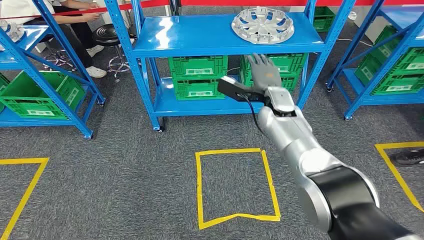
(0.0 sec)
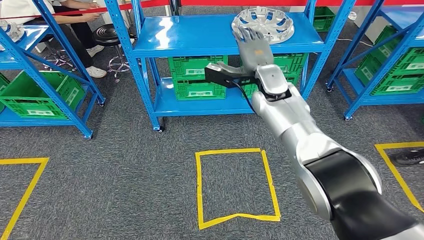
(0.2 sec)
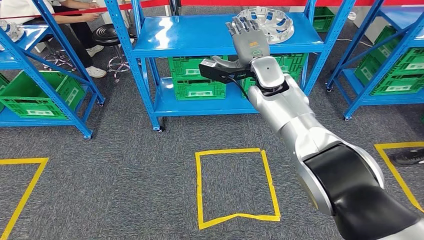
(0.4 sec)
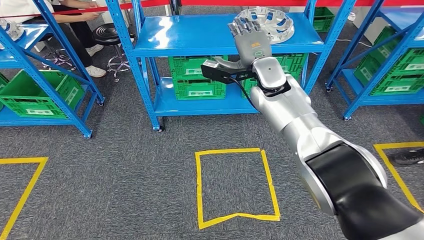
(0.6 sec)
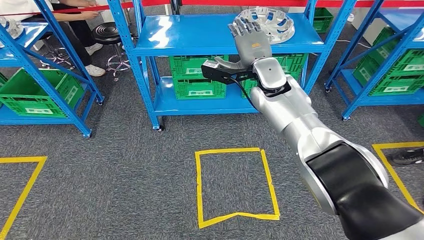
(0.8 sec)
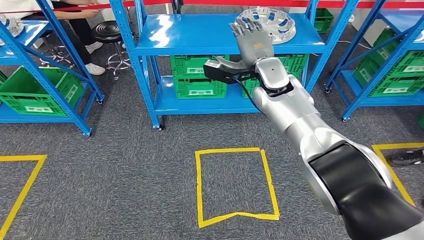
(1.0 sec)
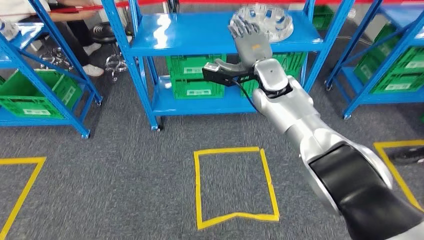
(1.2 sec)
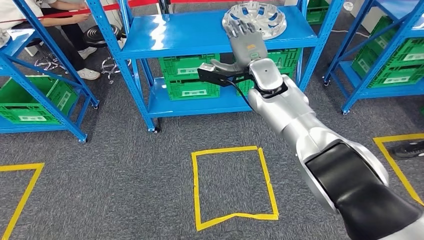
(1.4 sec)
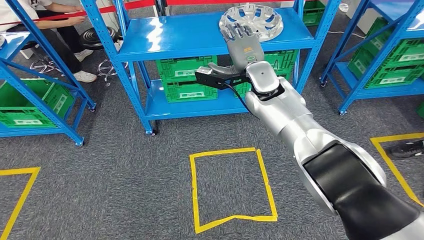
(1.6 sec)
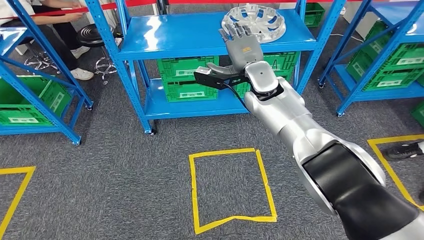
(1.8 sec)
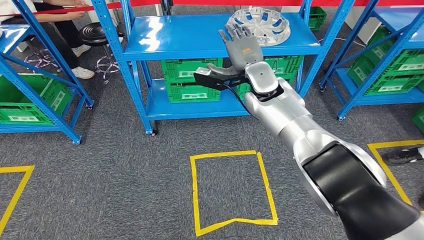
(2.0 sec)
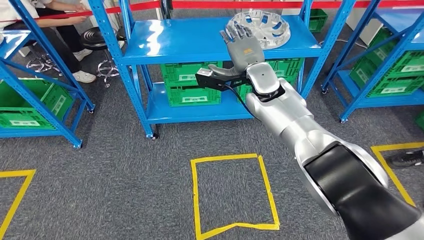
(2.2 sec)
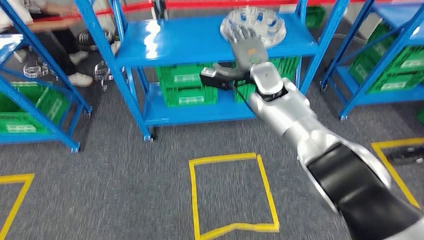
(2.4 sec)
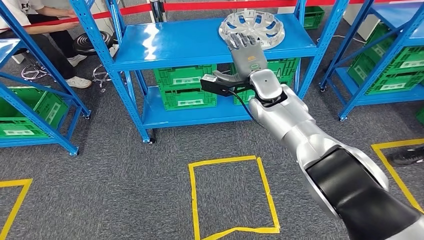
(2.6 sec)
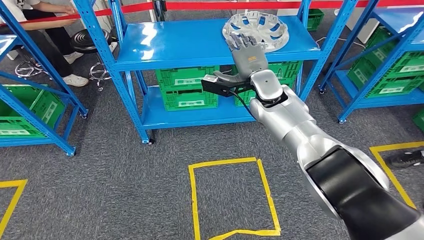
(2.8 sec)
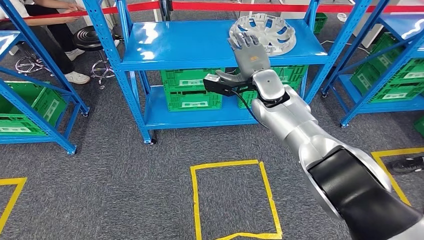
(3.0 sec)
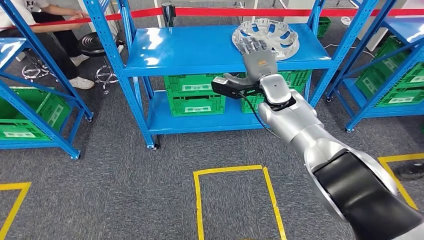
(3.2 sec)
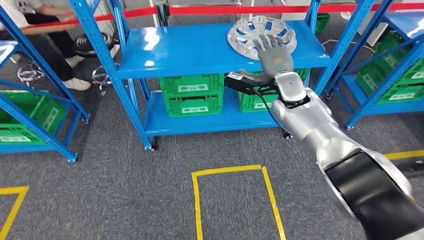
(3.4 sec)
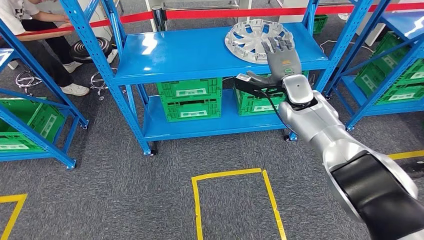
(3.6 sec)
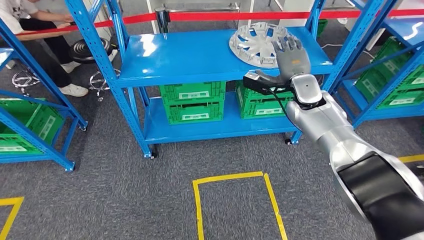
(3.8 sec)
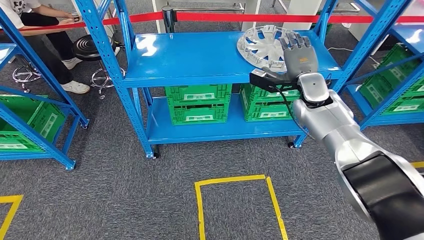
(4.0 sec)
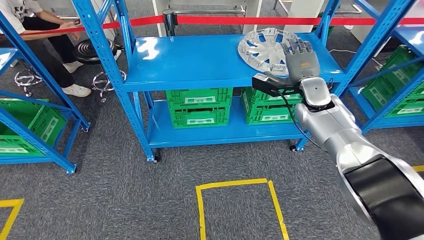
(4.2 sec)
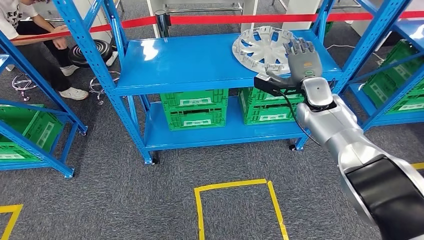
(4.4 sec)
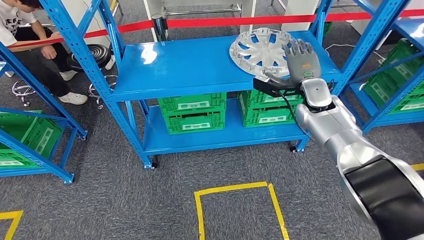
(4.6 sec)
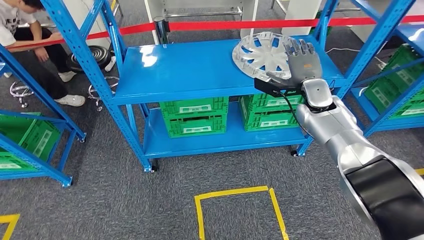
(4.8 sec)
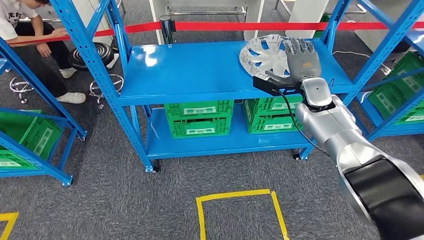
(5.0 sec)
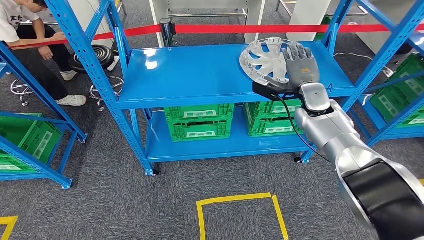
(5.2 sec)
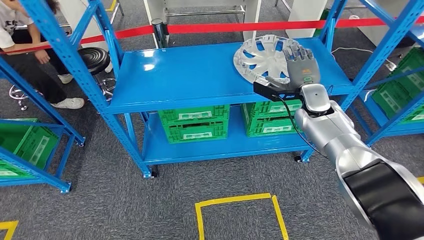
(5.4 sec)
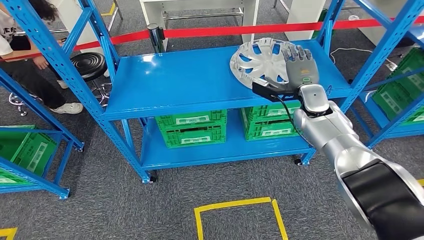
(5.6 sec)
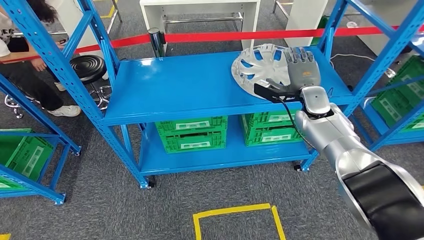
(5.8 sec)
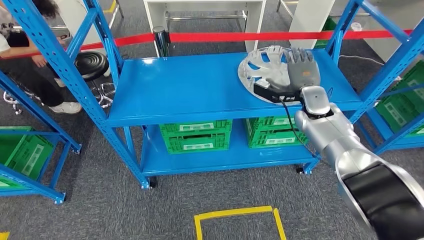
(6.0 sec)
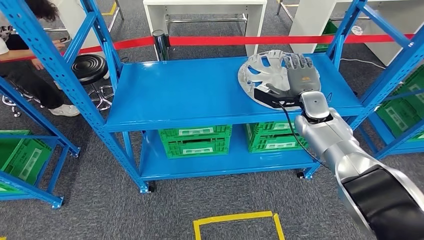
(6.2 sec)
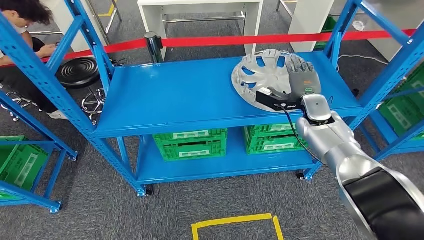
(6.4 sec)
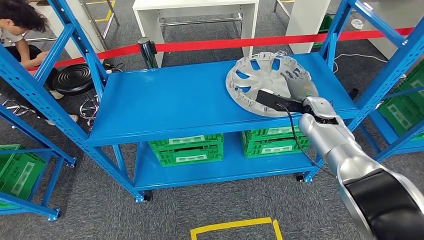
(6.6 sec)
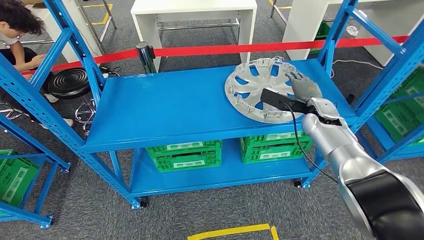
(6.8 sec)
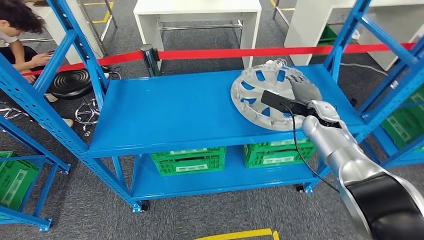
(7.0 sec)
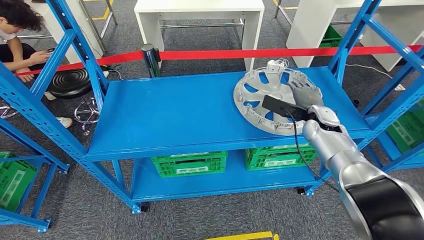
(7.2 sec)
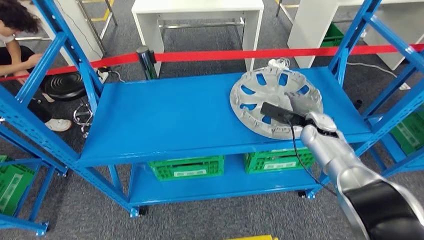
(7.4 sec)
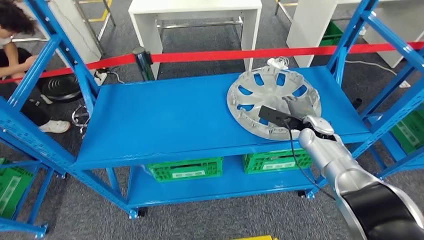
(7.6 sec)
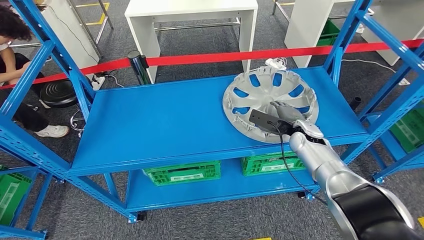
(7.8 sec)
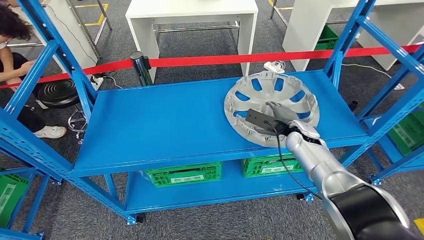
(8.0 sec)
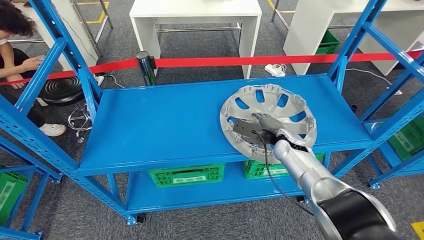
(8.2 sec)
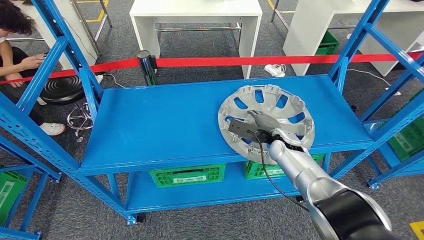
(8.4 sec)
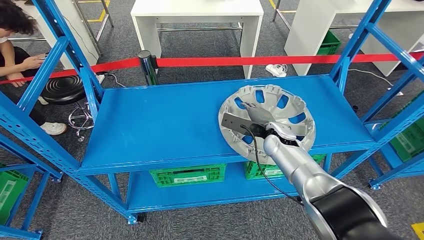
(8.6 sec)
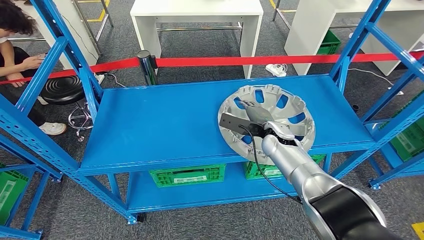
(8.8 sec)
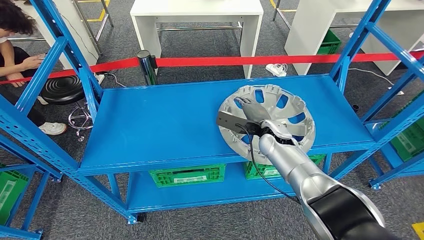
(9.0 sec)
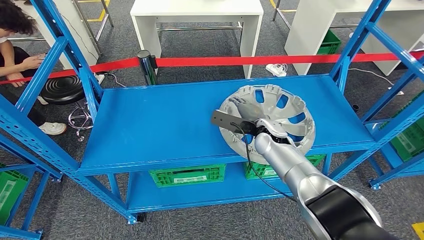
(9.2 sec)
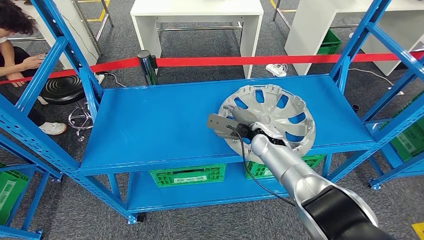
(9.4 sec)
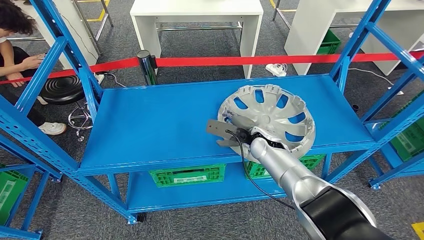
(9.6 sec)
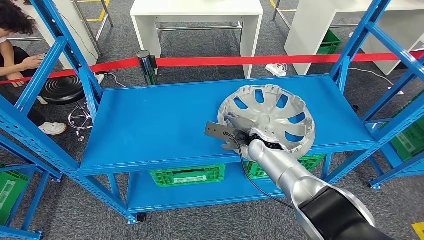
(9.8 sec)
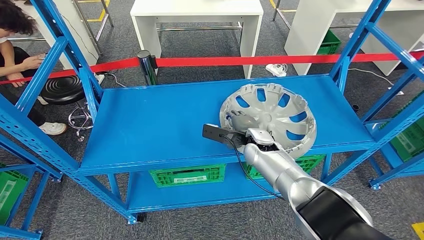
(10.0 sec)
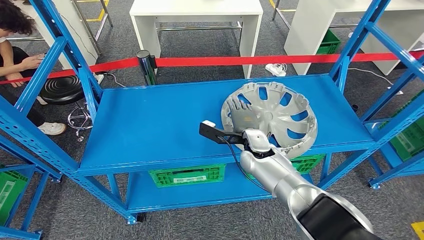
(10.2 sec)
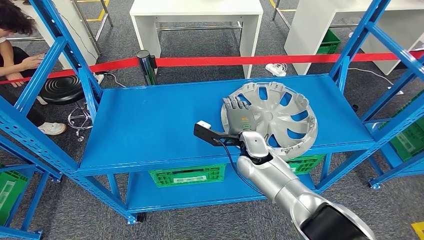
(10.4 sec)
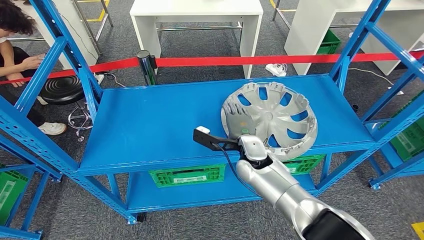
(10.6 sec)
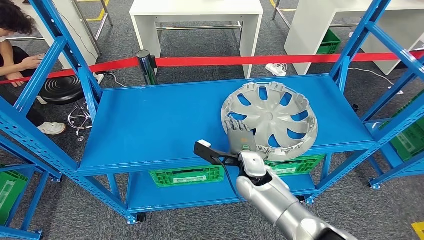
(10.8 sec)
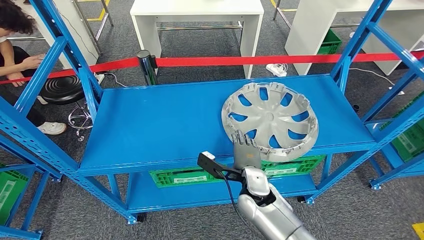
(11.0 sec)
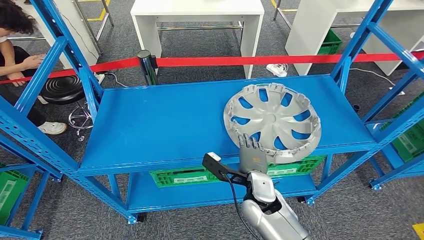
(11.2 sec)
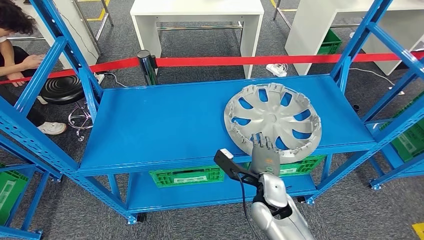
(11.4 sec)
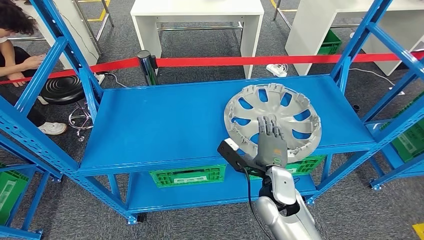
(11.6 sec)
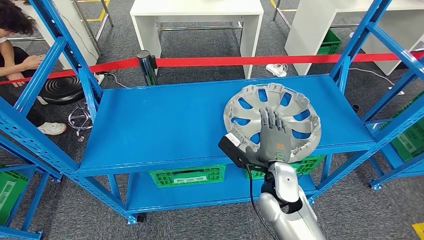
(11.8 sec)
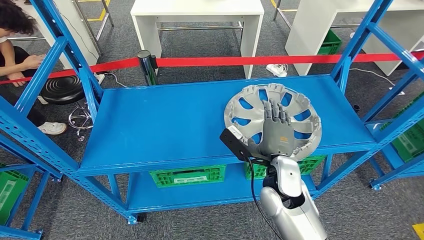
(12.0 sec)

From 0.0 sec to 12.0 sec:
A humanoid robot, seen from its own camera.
From 9.0 sec to 10.4 sec: The right hand moves to the left, some 5 cm.
From 10.4 sec to 12.0 sec: The right hand goes roughly 10 cm backward.

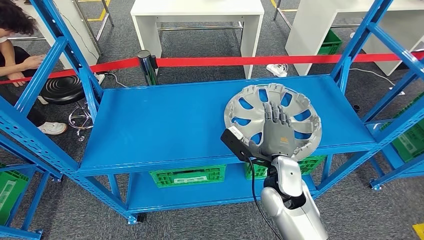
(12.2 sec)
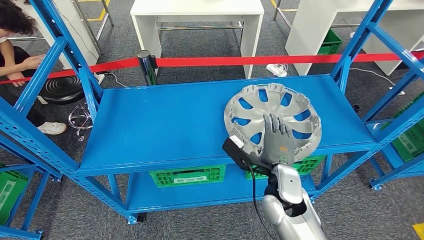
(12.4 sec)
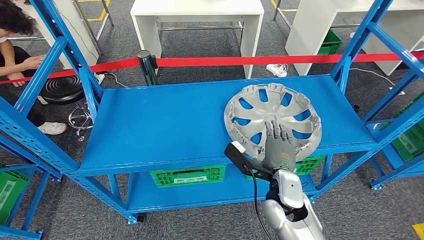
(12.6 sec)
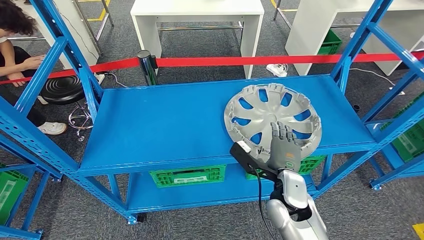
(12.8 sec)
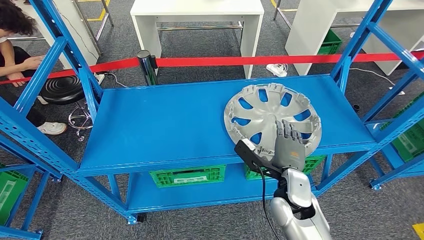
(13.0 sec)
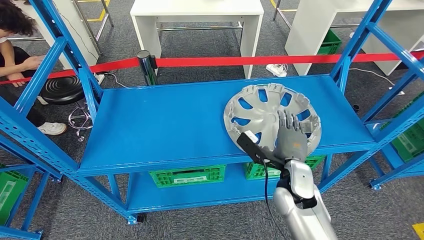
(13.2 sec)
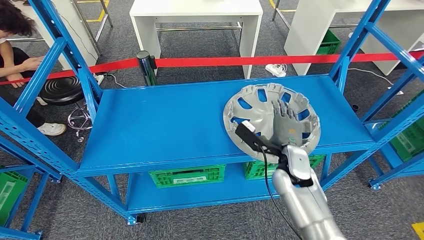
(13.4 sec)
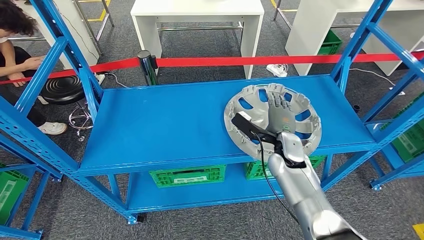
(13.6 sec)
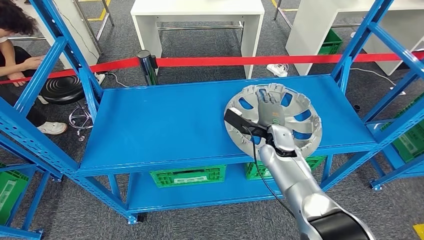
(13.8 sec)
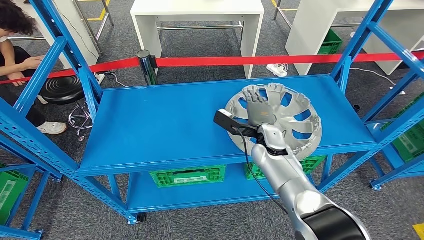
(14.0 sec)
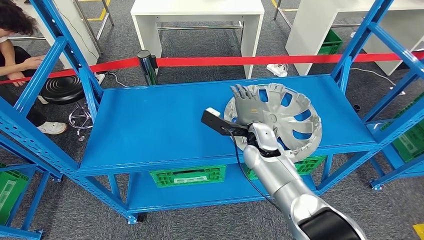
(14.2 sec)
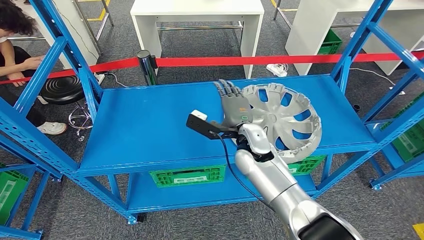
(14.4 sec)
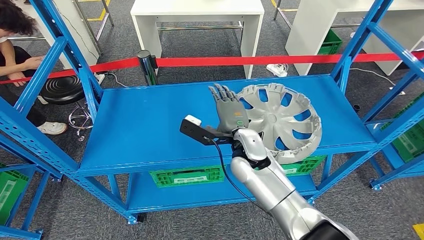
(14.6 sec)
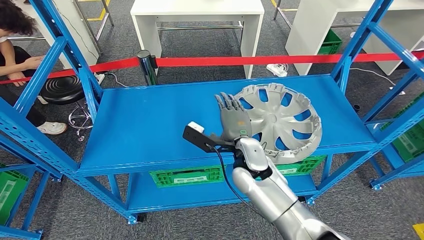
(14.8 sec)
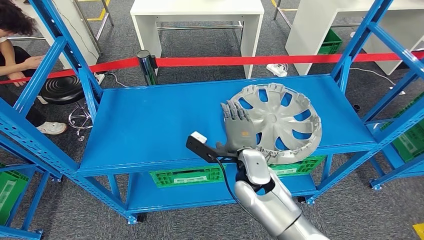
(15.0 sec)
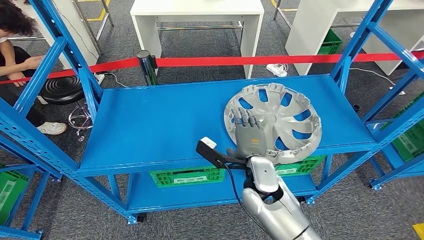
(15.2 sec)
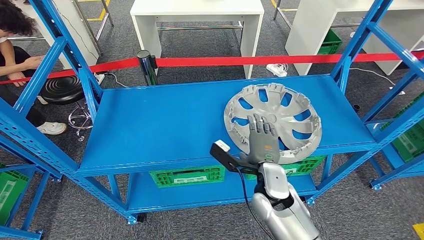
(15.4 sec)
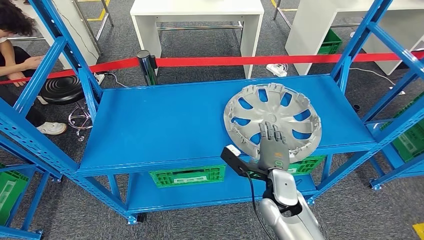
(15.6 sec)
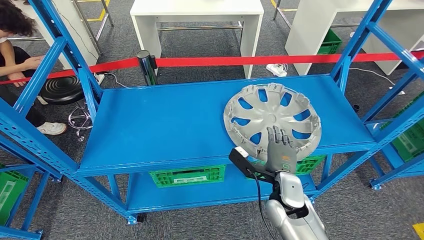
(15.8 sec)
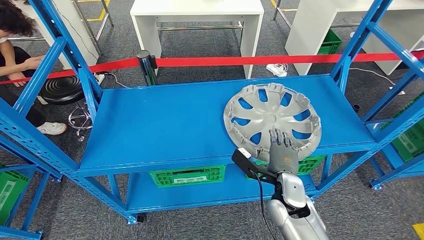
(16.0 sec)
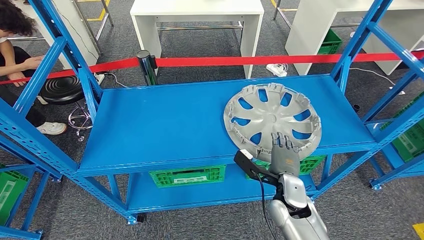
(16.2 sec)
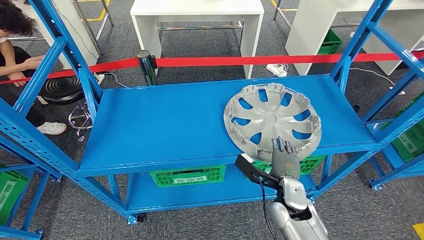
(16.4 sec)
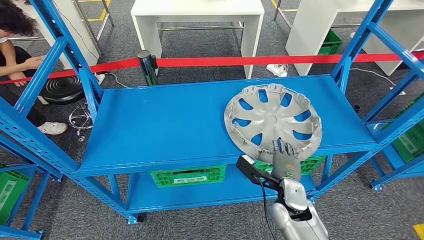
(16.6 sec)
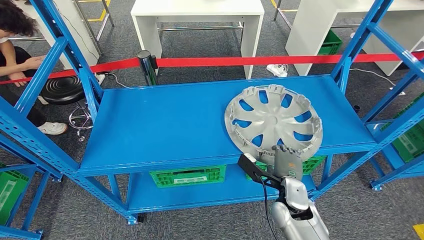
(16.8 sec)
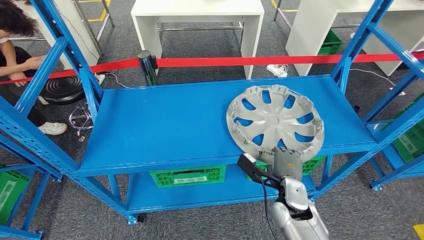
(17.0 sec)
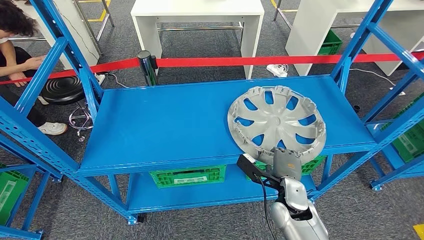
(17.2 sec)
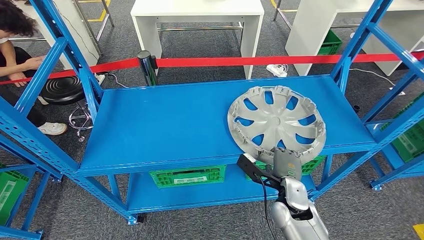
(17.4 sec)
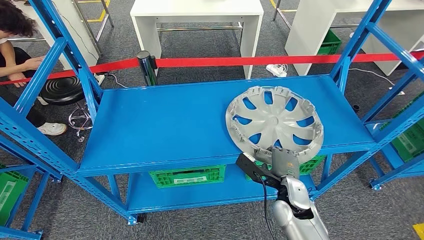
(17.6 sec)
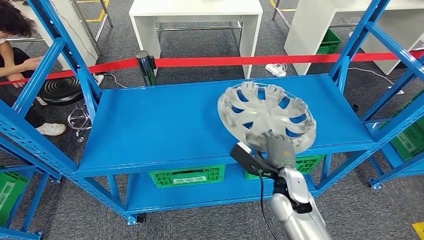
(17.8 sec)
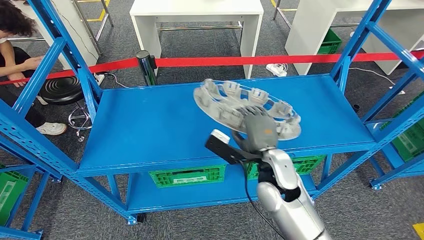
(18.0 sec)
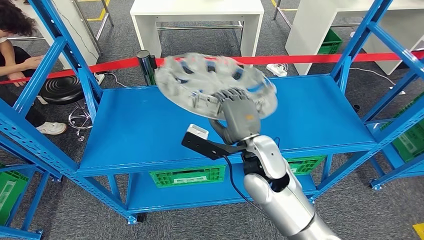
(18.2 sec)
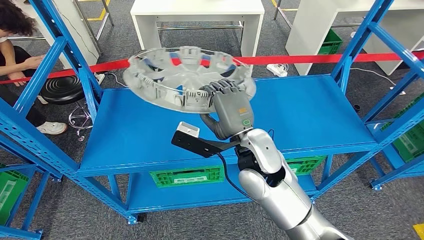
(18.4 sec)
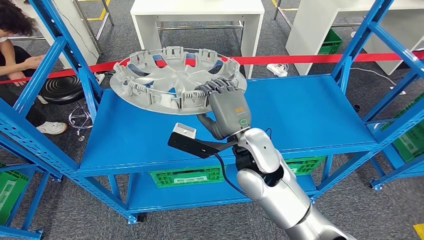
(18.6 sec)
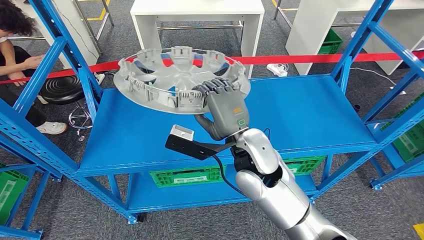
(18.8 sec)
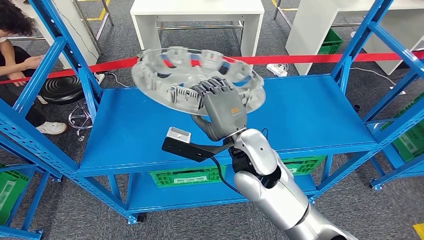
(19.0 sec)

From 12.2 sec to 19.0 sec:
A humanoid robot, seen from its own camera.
Step, from 12.2 sec to 18.8 sec: Pick up the small parts from the shelf.
From 12.2 sec to 13.6 sec: The right hand travels forward by about 10 cm.
From 13.6 sec to 15.0 sec: The right hand travels to the left and backward by approximately 15 cm.
From 15.0 sec to 16.2 sec: The right hand moves to the right, downward and backward, roughly 15 cm.
From 16.2 sec to 17.6 sec: The hands stay close to where they were, moving slightly.
From 17.6 sec to 19.0 sec: The right hand is displaced upward and to the left by approximately 20 cm.
